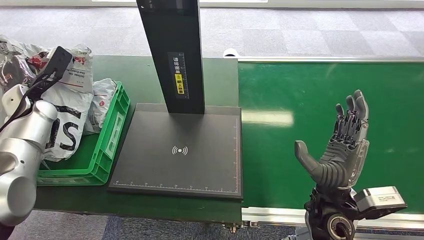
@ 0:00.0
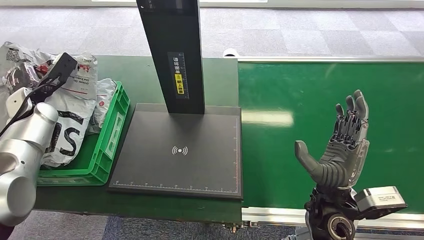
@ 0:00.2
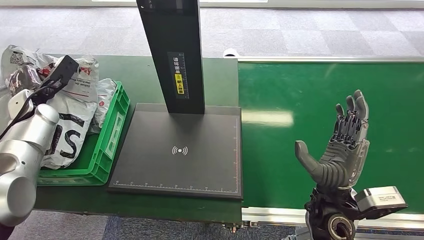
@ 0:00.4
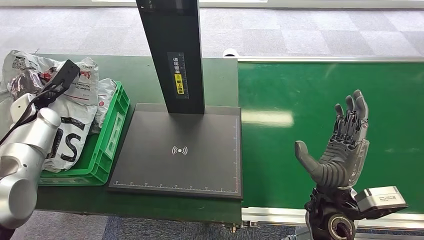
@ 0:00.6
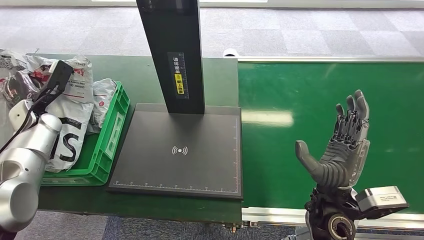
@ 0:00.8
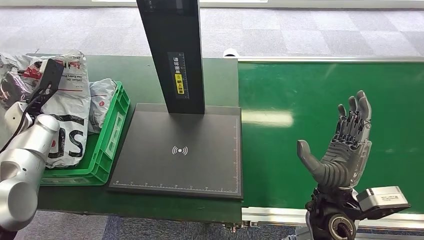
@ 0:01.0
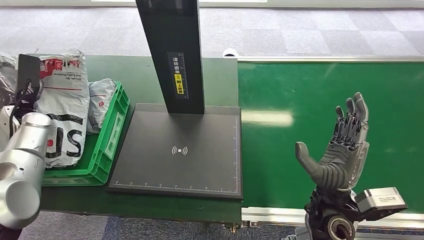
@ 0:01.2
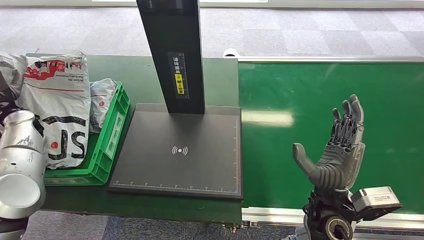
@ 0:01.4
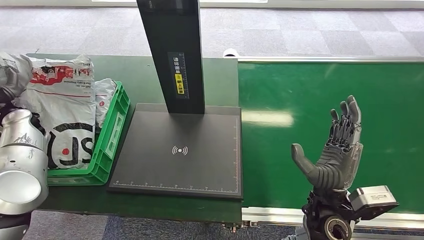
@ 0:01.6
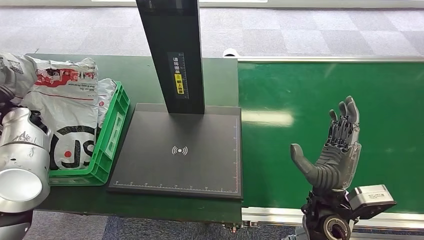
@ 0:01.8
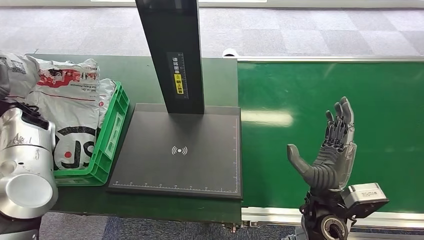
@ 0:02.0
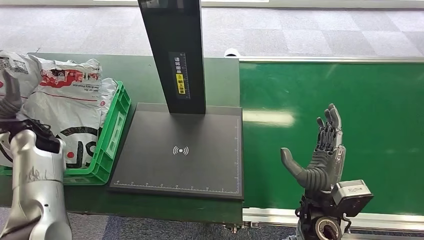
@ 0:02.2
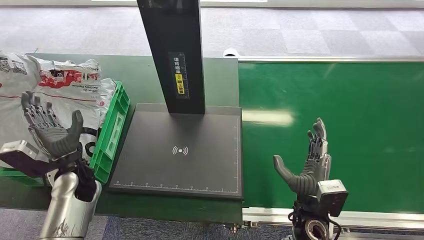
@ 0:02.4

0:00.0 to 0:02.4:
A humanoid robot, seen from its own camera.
Step, 0:00.0 to 0:02.2: Place the package into the parcel locker.
0:01.2 to 0:02.4: The left hand goes roughly 20 cm to the right, backward and downward. Meanwhile the right hand is displaced downward by roughly 10 cm.
